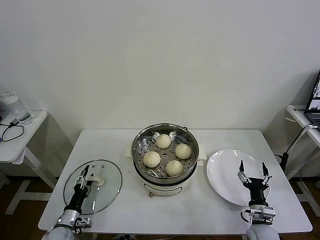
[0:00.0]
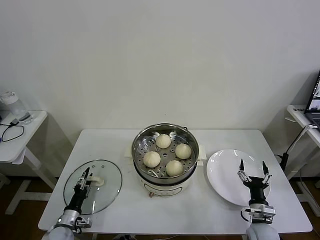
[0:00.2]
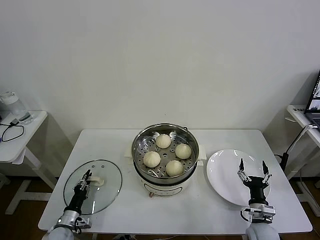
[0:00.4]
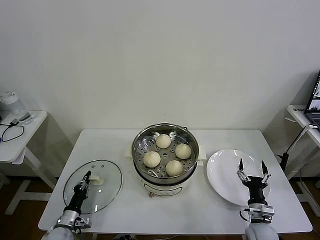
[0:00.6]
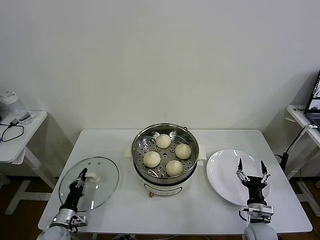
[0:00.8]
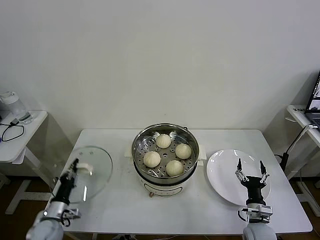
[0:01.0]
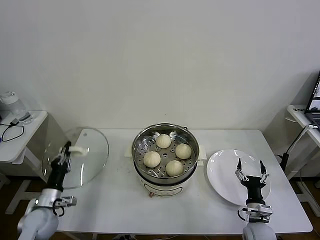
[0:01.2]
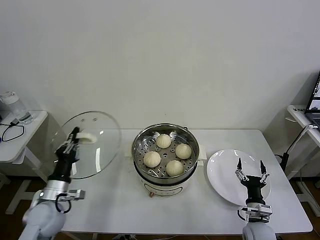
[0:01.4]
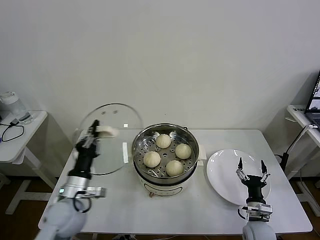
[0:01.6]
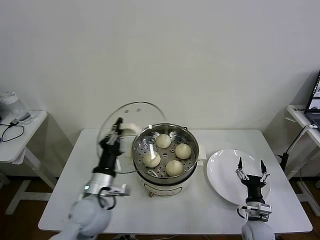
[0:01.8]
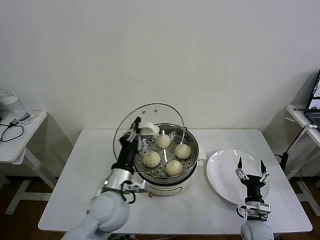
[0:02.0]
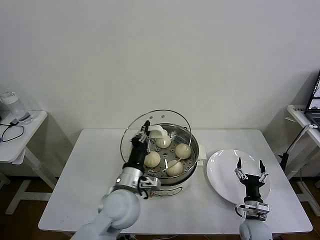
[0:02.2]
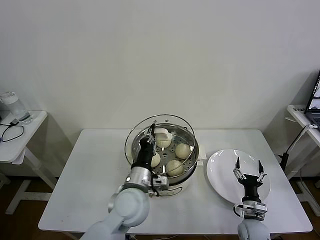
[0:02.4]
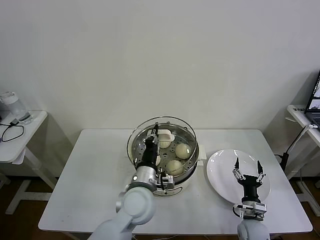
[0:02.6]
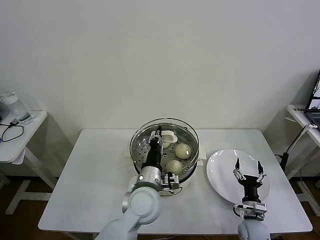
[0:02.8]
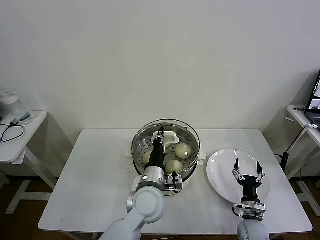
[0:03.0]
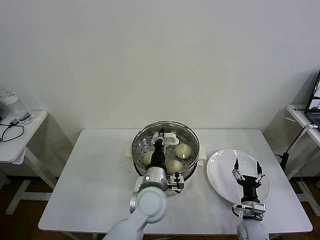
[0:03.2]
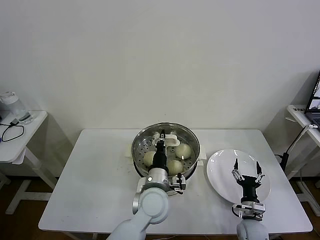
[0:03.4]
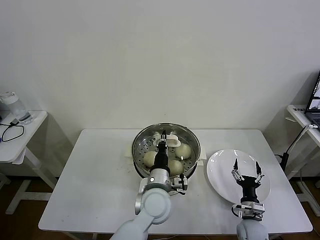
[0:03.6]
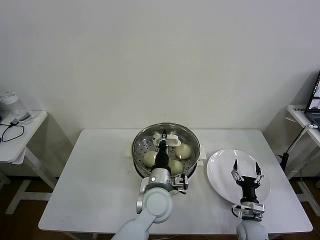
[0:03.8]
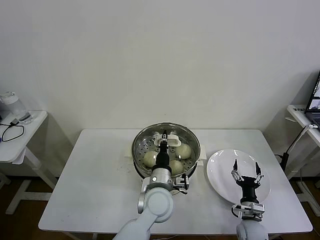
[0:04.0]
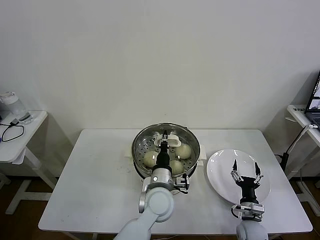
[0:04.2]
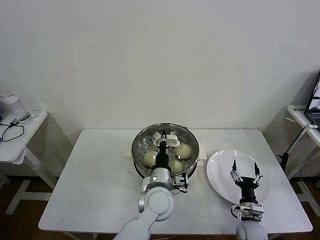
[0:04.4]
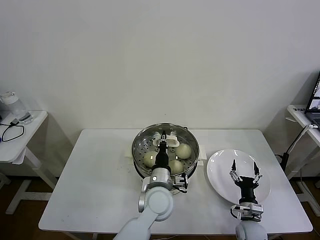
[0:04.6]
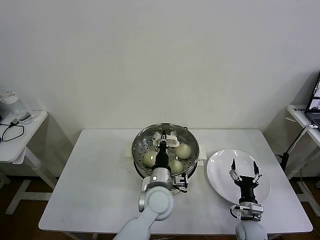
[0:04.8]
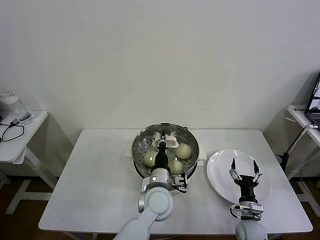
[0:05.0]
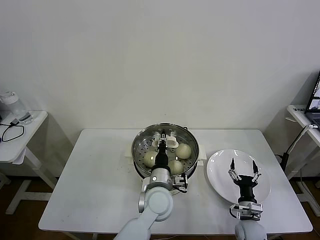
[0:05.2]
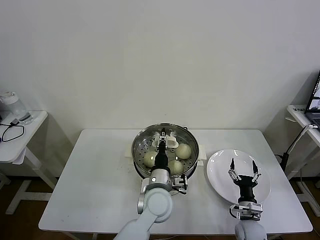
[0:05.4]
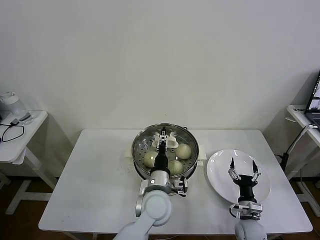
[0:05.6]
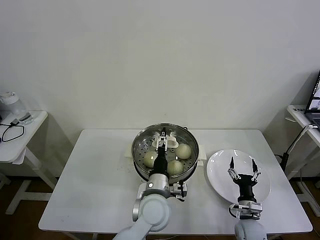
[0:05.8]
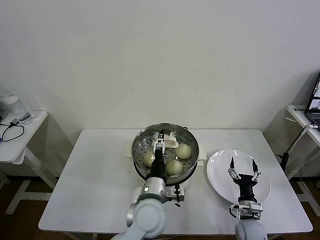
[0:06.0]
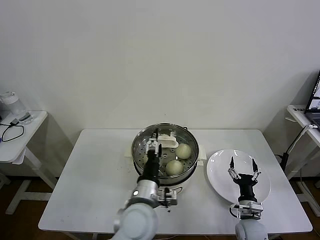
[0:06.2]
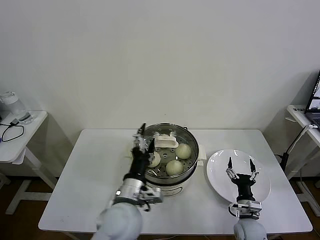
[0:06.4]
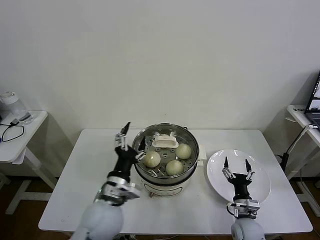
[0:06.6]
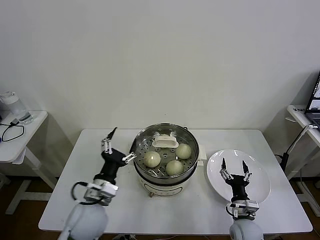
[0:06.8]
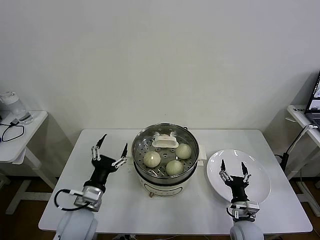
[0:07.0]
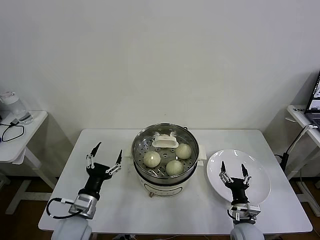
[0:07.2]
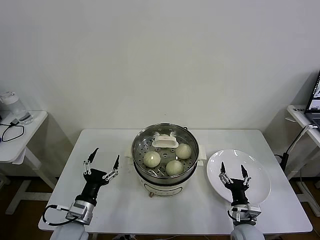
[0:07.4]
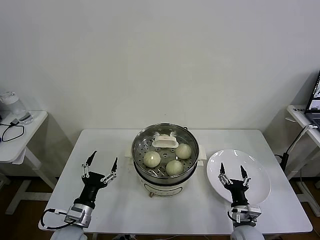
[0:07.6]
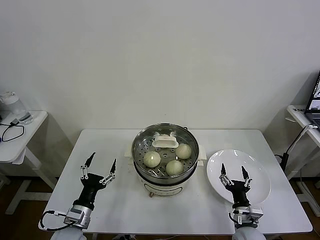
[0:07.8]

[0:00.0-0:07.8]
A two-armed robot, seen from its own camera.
Task of the whole recording: take steamed baozi put them in steamer then cover it.
Step, 0:00.8 to 0:05.6: Place the pot lid on the steamer with left gripper.
0:00.0 to 0:01.6: The left gripper goes roughly 25 cm upward and to the right, and closes its fingers.
0:01.6 to 0:03.2: The left gripper moves to the right, approximately 25 cm.
0:03.2 to 0:04.6: There are only small adjustments of the grippers.
0:04.6 to 0:06.2: The left gripper heads backward, covering roughly 5 cm, and opens up.
0:06.2 to 0:07.8: The right gripper moves roughly 5 cm. The left gripper shifts about 25 cm to the left and downward.
